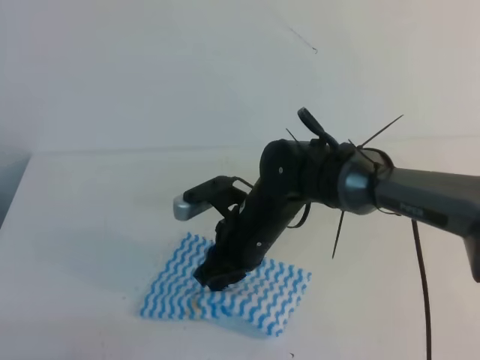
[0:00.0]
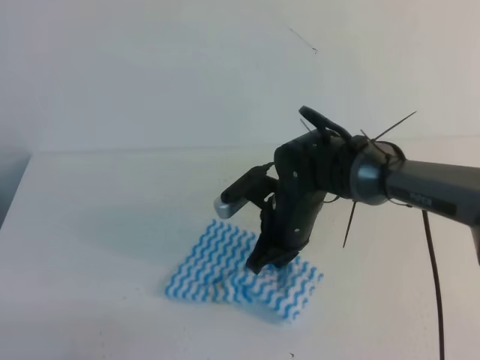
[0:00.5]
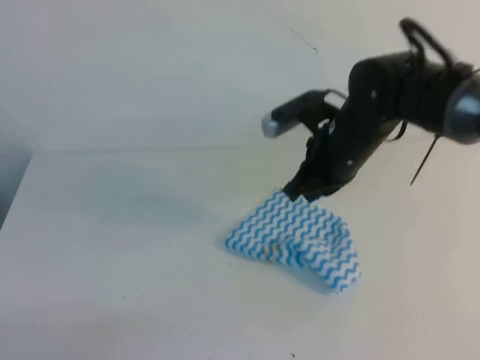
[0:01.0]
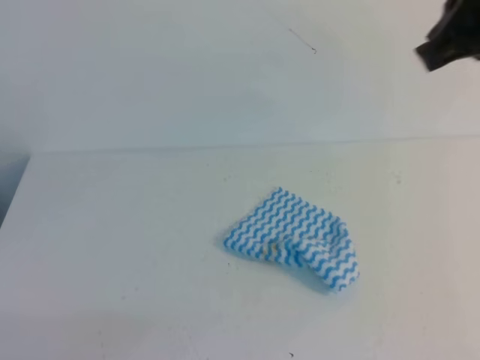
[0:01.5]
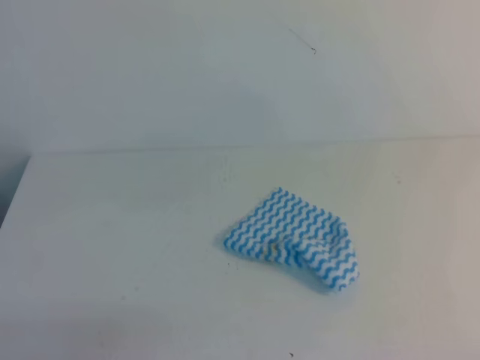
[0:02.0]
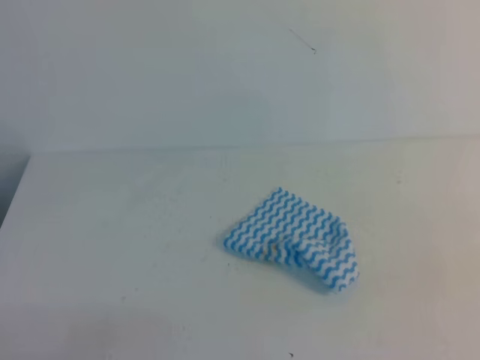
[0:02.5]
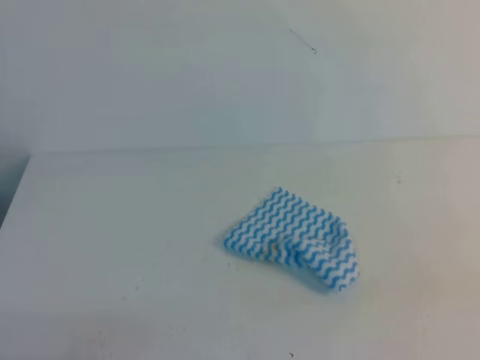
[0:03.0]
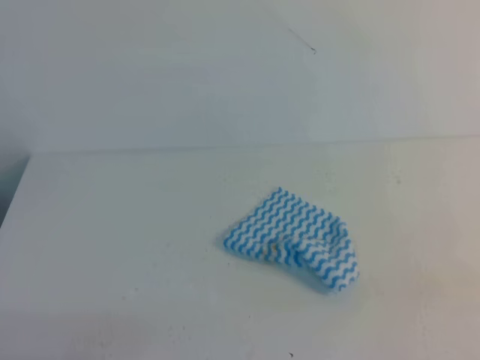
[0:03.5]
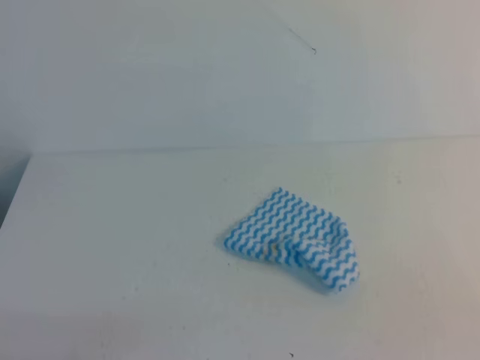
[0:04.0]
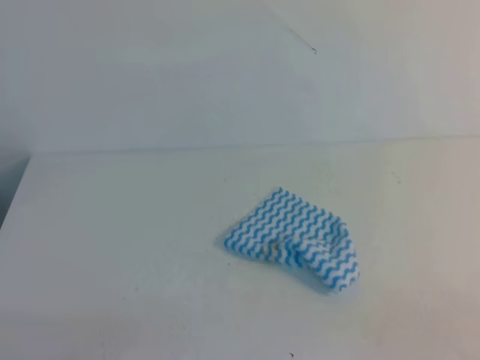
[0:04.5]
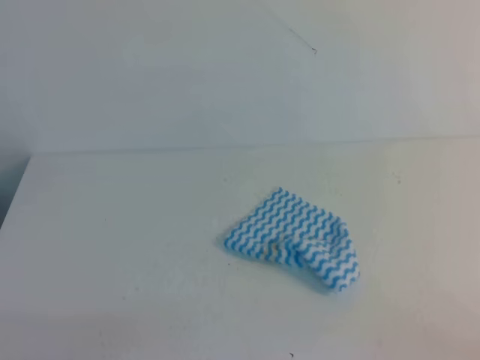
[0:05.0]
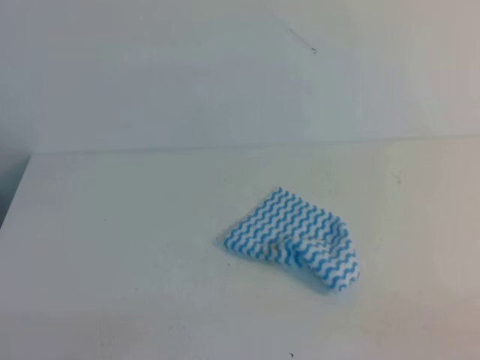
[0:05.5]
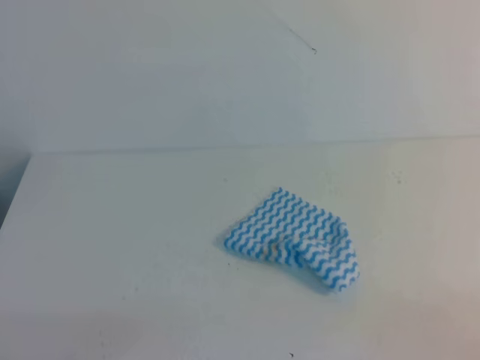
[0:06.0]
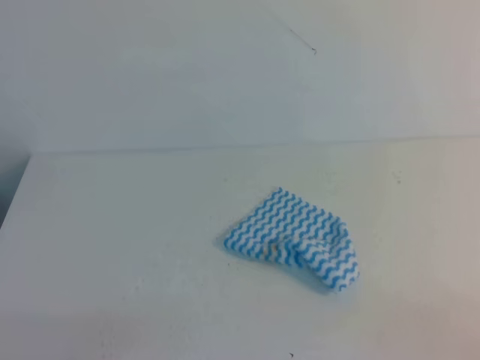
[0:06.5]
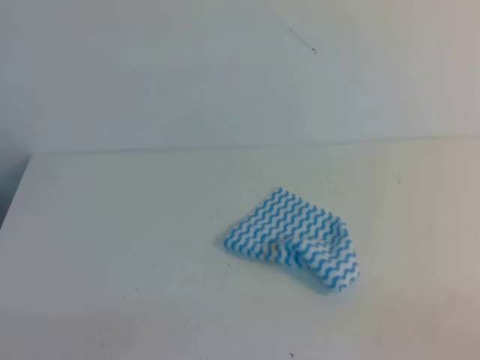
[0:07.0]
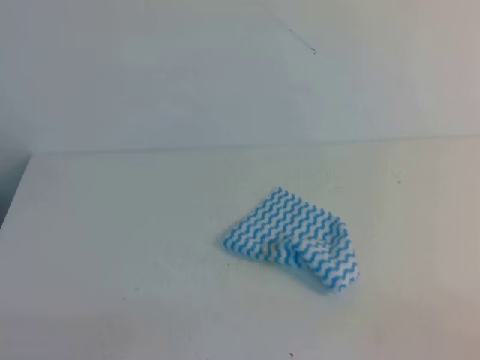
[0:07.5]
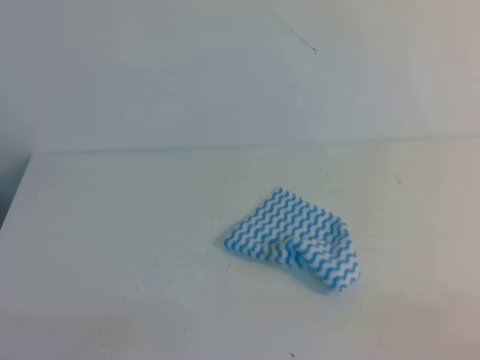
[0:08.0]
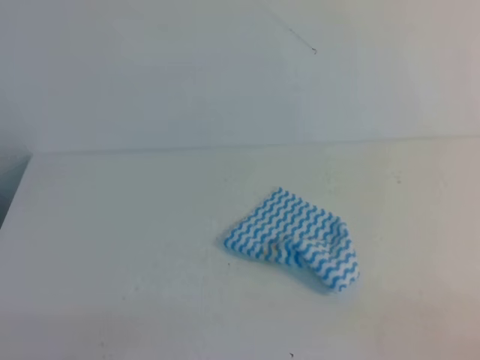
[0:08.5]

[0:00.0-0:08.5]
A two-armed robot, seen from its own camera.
0:00.0 to 0:02.0: The right gripper travels to the right, upward and backward by roughly 40 cm, and closes up.
